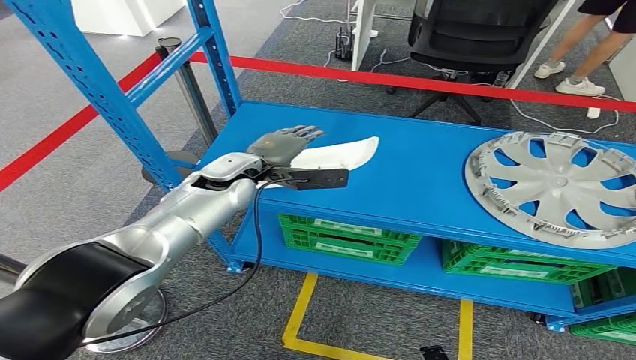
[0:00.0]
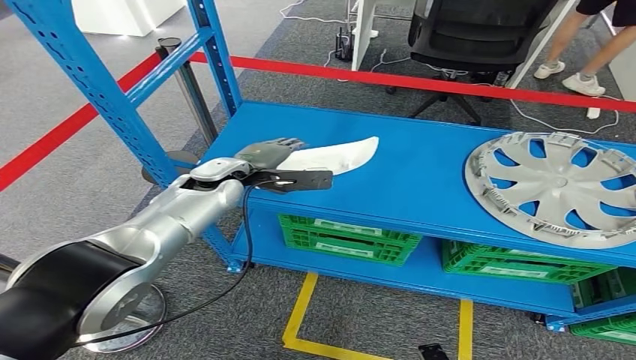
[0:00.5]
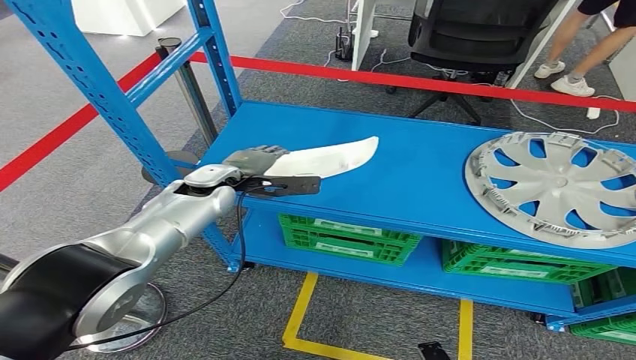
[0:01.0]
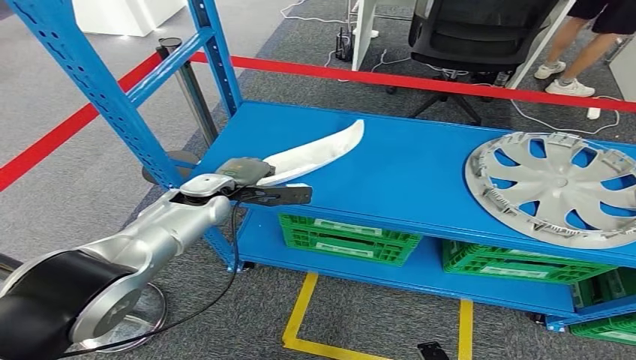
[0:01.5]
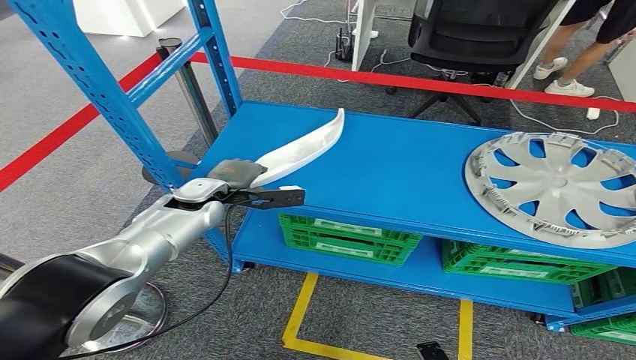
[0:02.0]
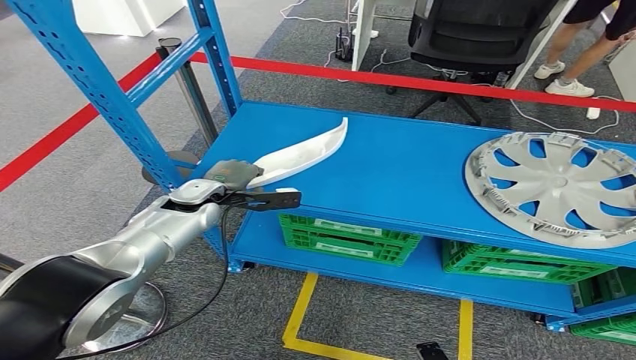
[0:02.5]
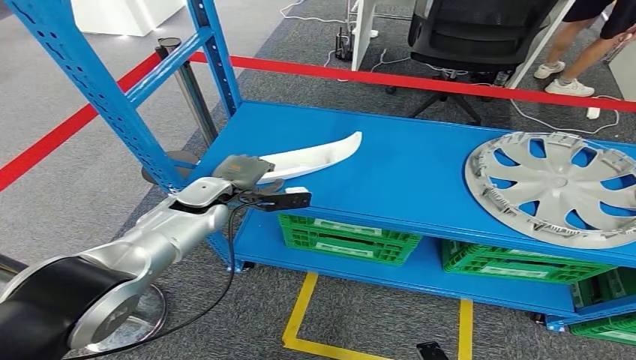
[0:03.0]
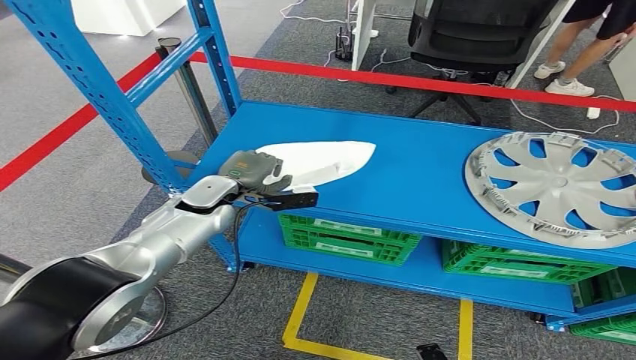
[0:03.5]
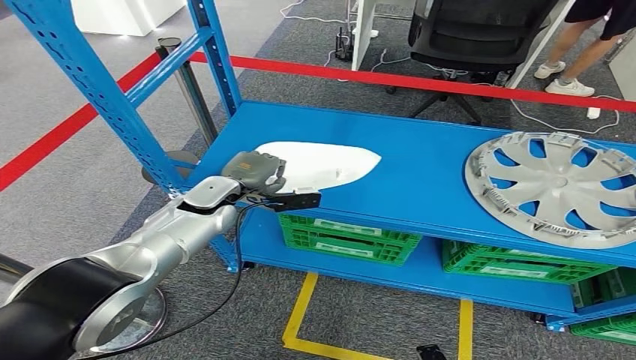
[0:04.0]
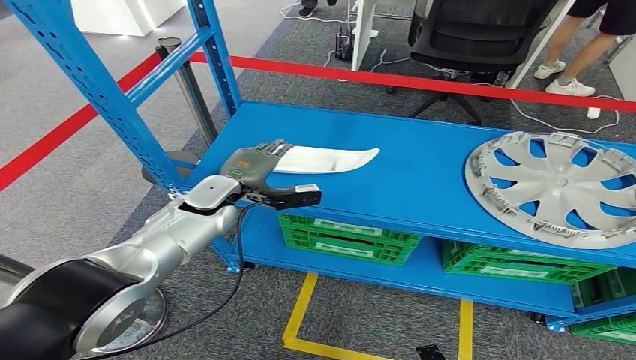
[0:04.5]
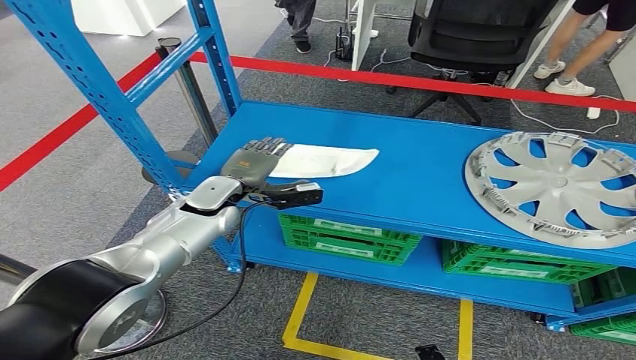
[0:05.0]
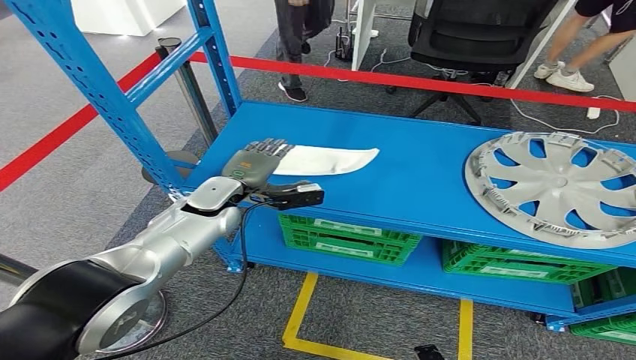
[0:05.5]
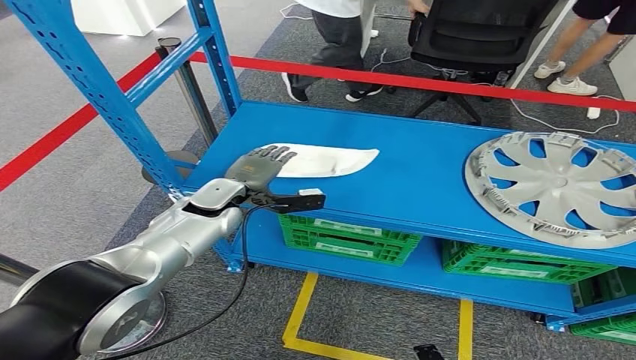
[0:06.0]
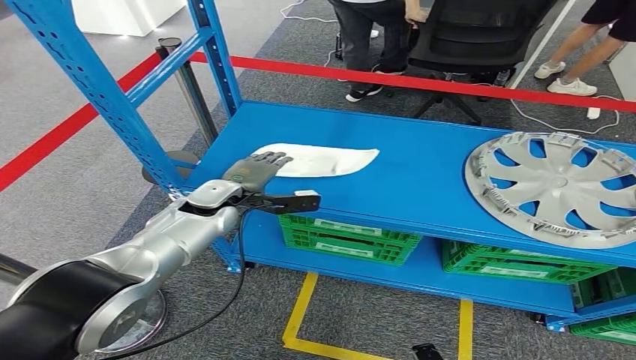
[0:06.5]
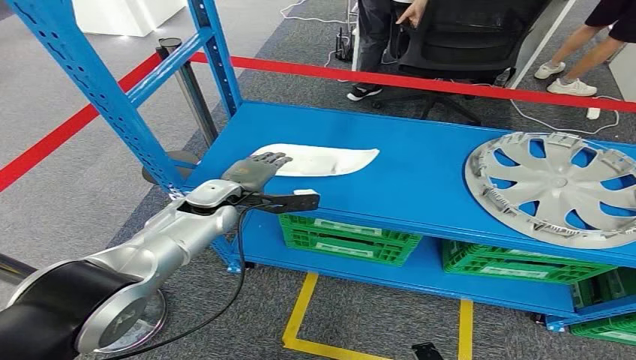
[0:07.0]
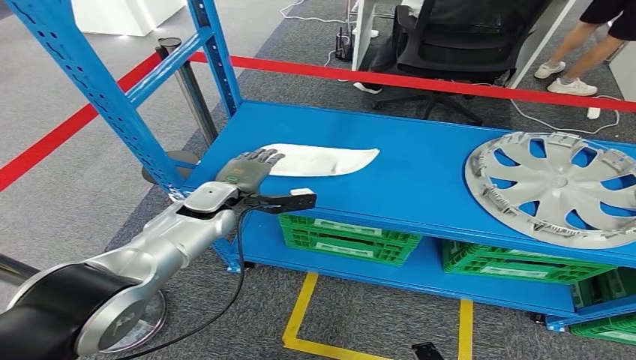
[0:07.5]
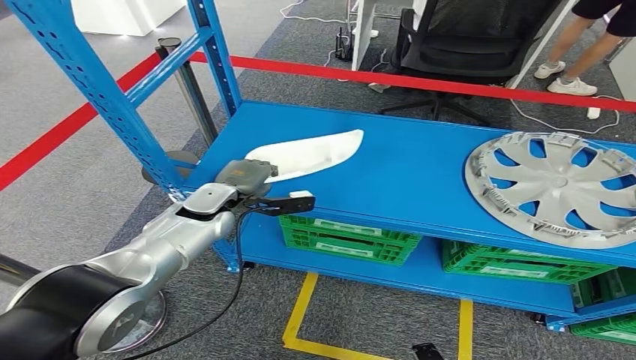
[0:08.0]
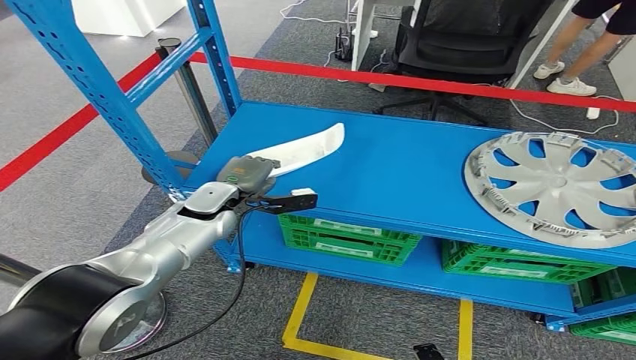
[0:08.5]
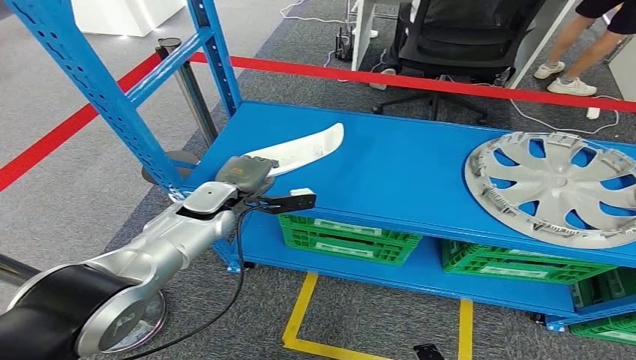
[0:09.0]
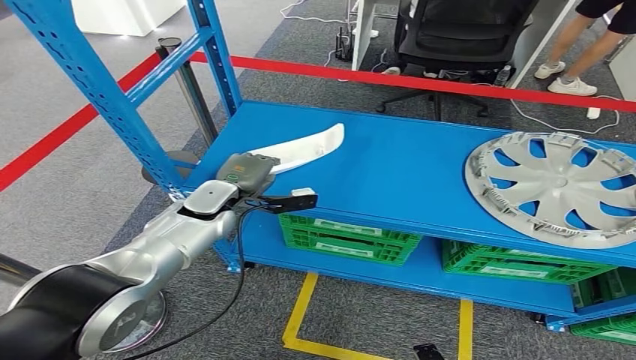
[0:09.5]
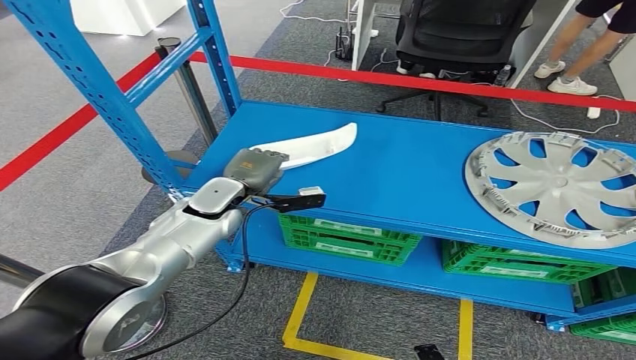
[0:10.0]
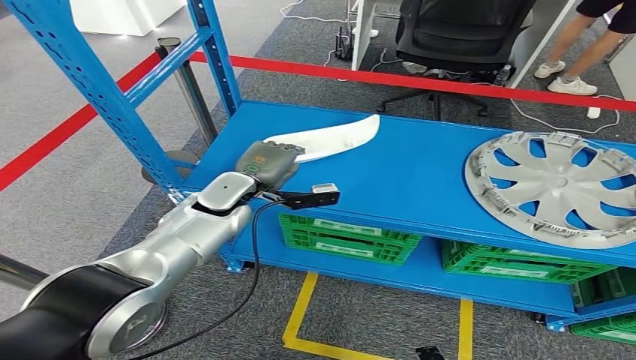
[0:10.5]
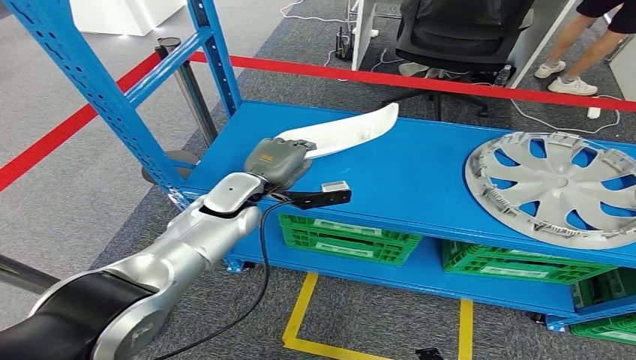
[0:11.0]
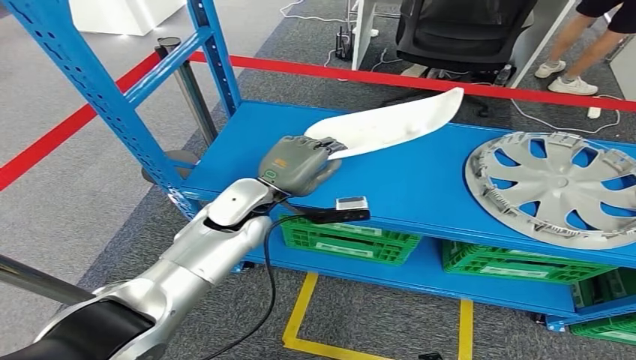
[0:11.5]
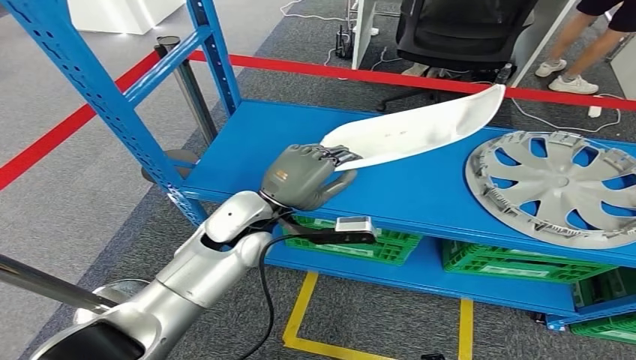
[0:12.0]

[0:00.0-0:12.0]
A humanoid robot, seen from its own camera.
0:00.0 to 0:02.0: The left hand shifts roughly 10 cm to the left and downward.
0:02.0 to 0:04.0: The hands stay close to where they were, moving slightly.
0:04.0 to 0:06.0: The two hands keep their place.
0:06.0 to 0:10.0: The hands stay close to where they were, moving slightly.

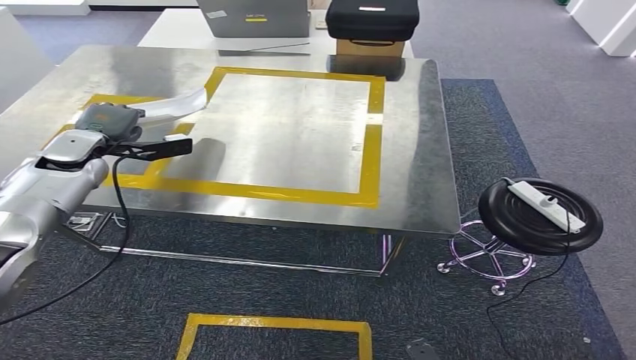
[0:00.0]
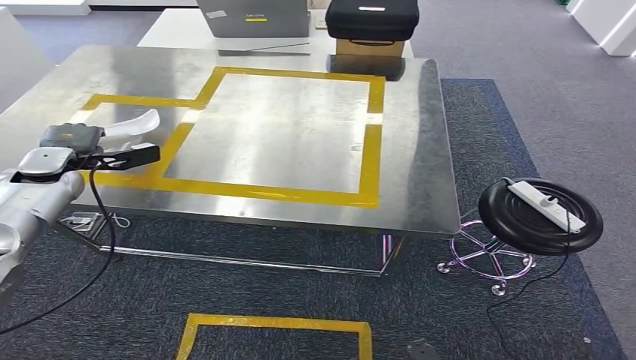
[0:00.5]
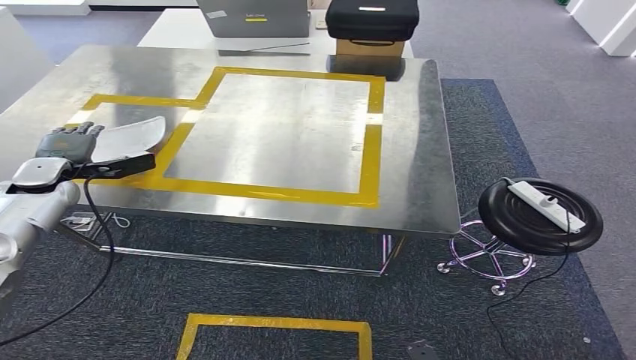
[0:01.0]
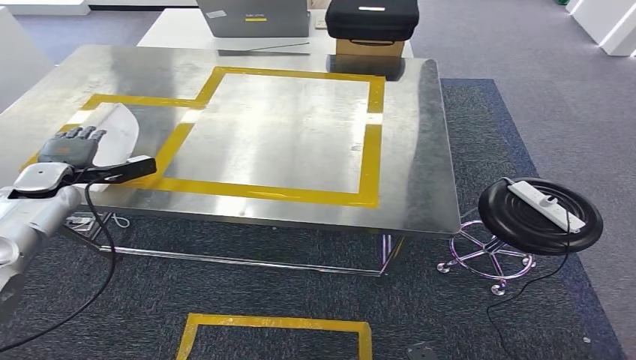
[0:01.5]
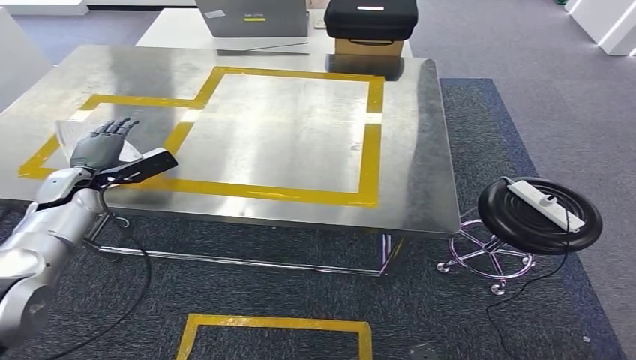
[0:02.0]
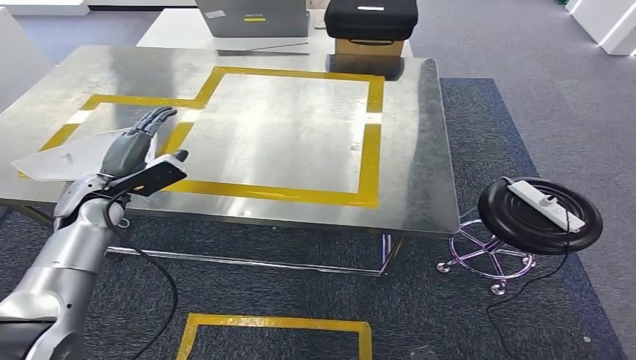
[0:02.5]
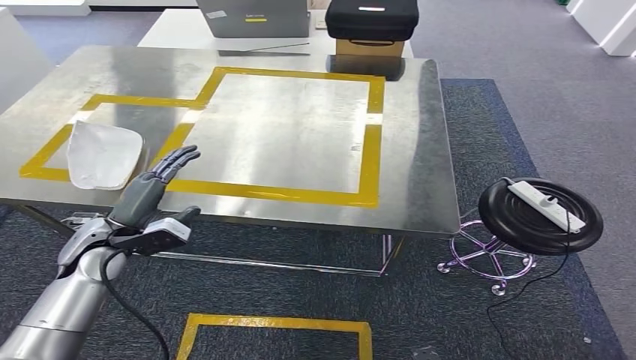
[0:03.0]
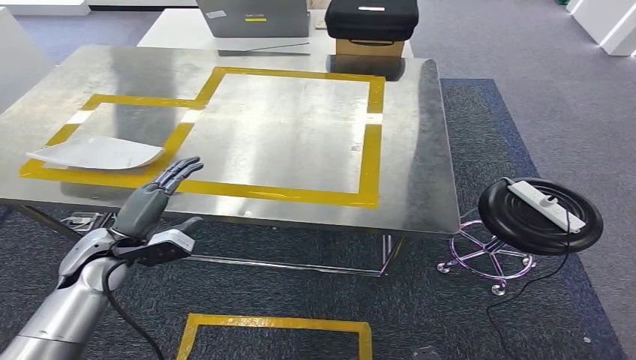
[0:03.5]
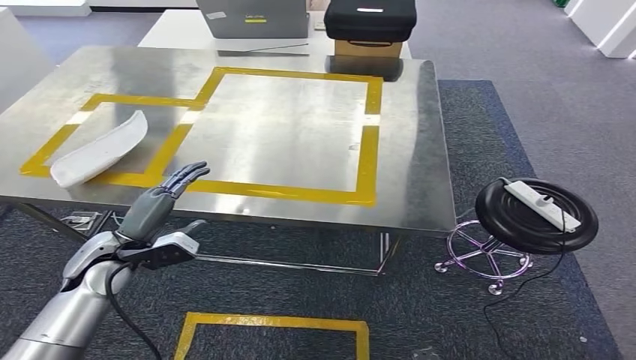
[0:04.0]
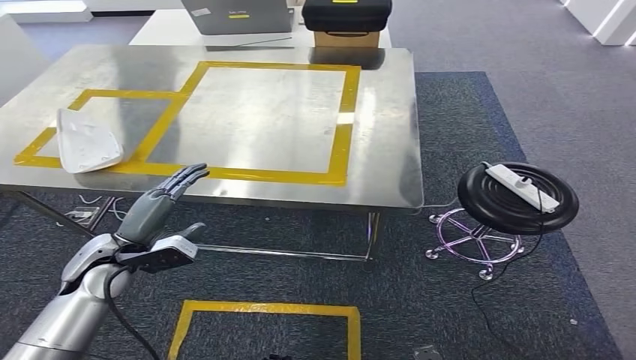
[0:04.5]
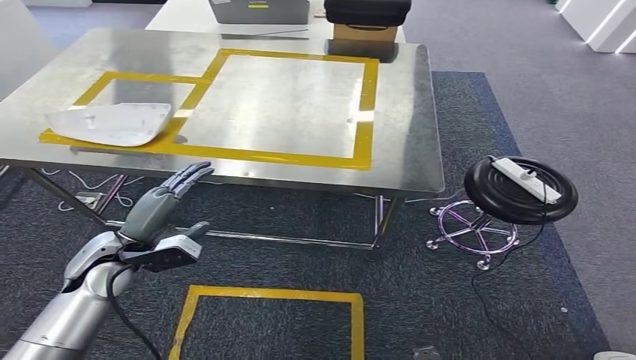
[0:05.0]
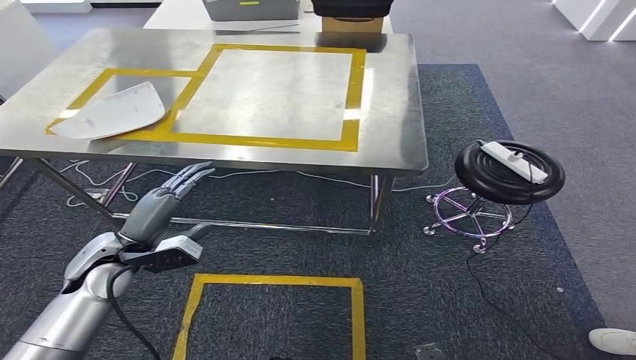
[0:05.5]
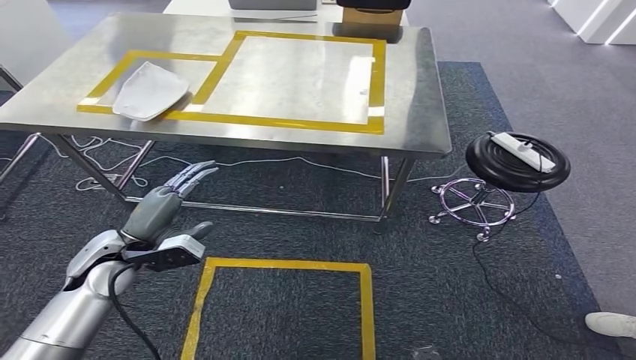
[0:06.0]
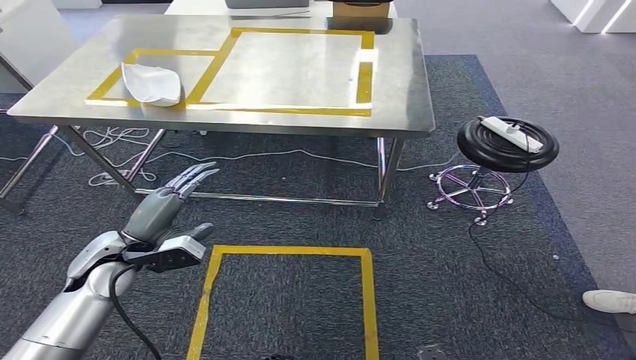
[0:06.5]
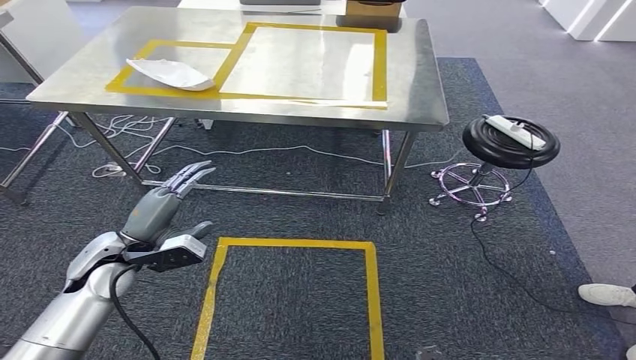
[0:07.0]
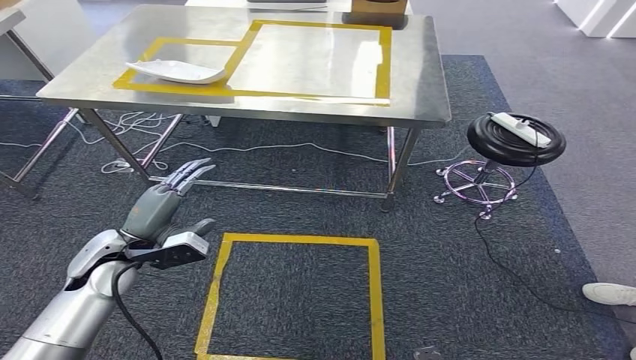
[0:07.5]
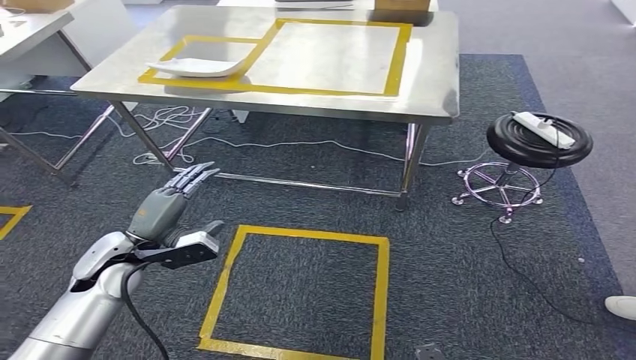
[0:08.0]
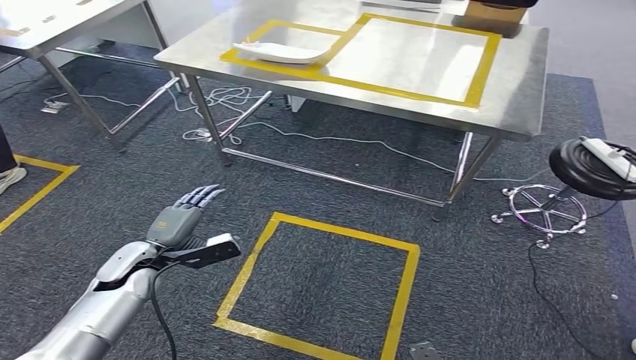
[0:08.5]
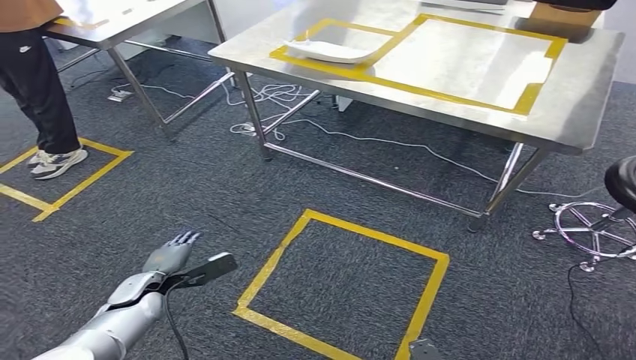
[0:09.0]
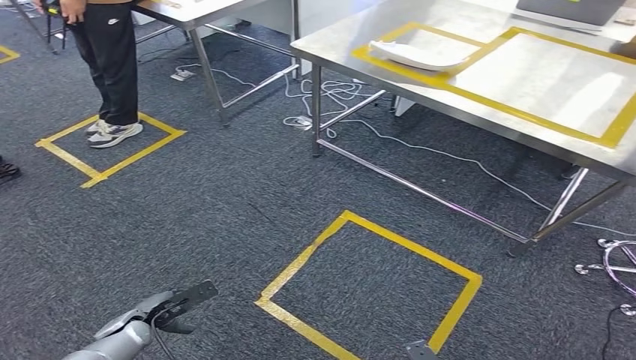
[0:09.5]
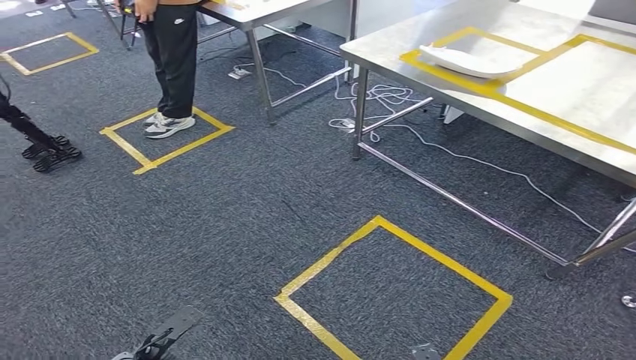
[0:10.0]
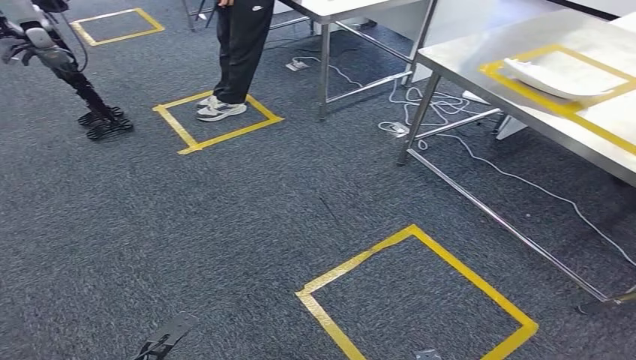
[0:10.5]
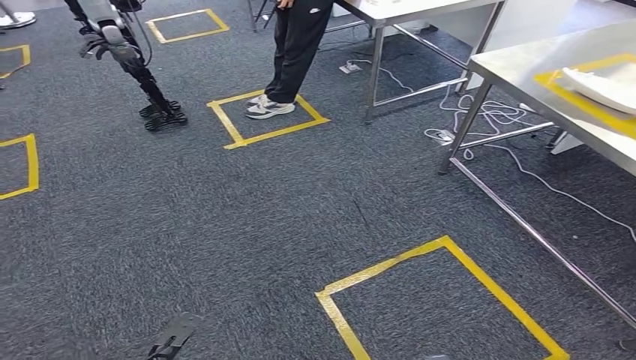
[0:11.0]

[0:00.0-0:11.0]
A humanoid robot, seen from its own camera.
Step, 0:00.5 to 0:02.5: Insert the small parts into the corresponding holes on the workbench.
0:00.0 to 0:02.0: The left hand is displaced downward and backward by roughly 10 cm.
0:02.0 to 0:03.5: The left hand shifts some 15 cm to the right and backward.
